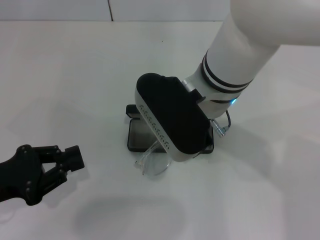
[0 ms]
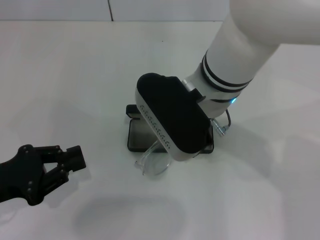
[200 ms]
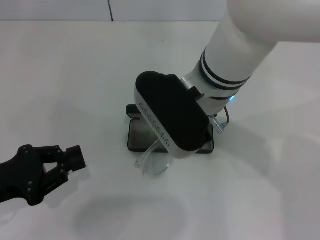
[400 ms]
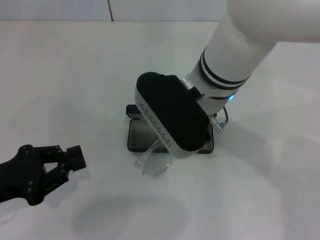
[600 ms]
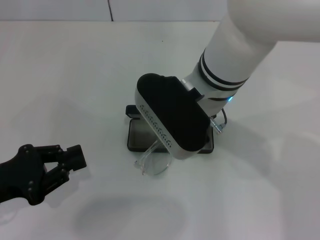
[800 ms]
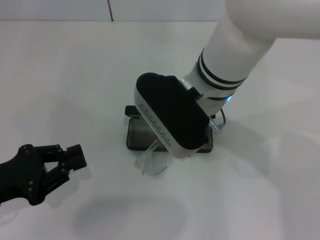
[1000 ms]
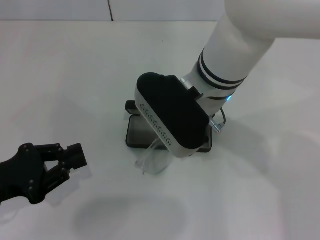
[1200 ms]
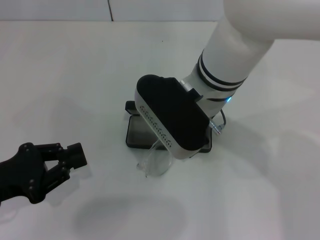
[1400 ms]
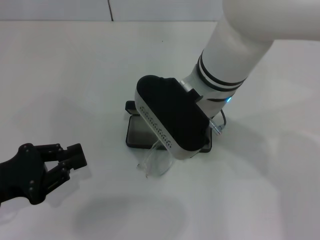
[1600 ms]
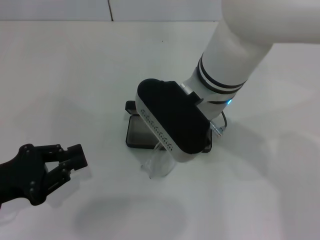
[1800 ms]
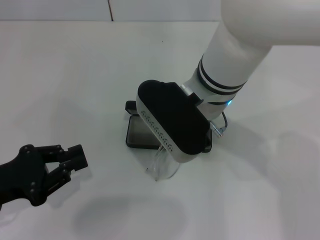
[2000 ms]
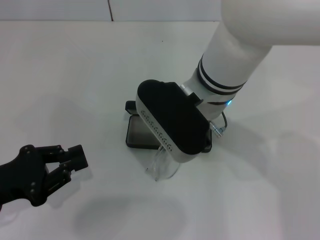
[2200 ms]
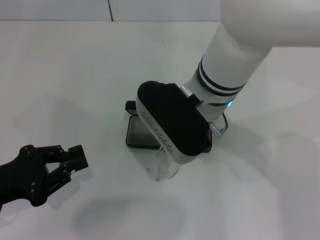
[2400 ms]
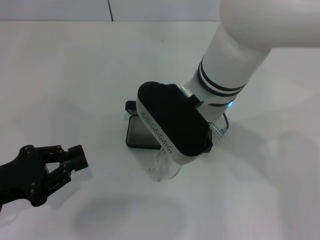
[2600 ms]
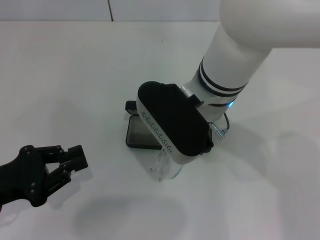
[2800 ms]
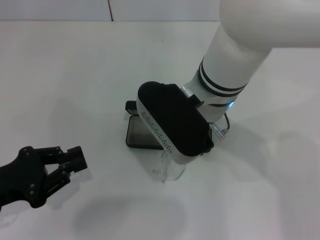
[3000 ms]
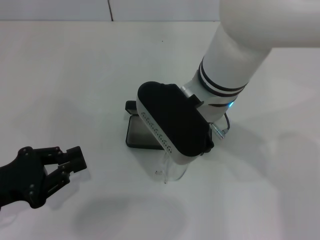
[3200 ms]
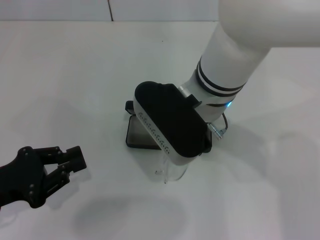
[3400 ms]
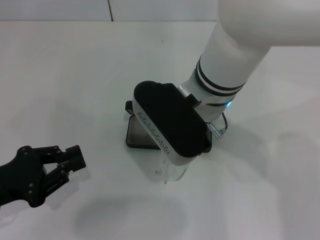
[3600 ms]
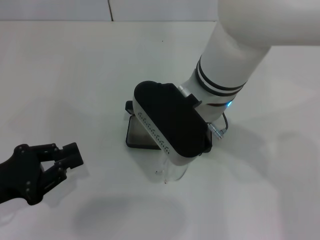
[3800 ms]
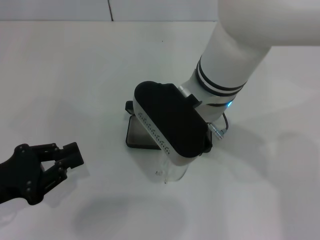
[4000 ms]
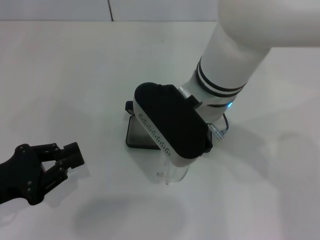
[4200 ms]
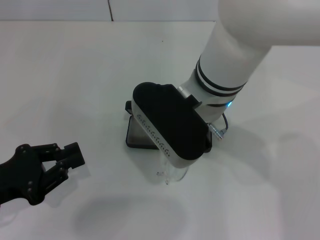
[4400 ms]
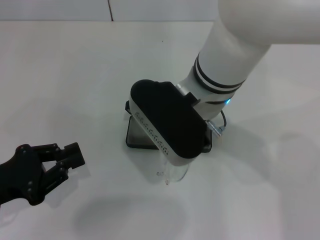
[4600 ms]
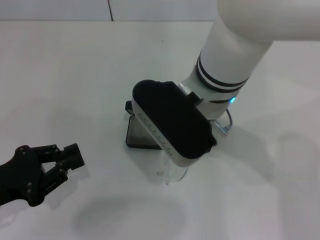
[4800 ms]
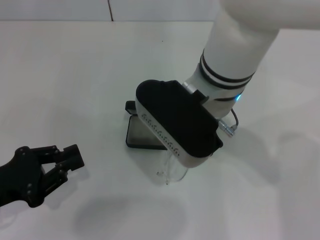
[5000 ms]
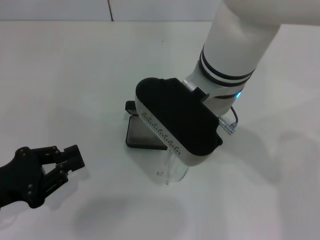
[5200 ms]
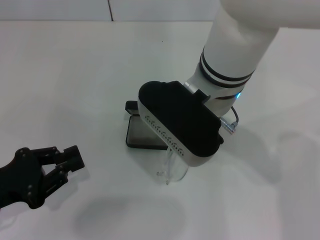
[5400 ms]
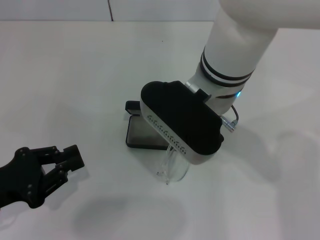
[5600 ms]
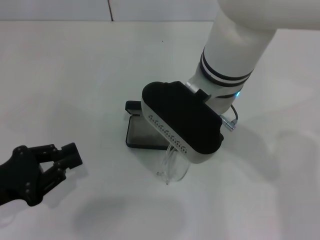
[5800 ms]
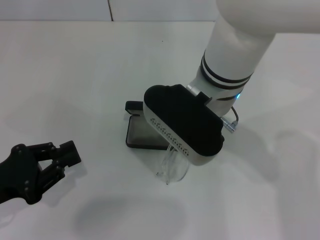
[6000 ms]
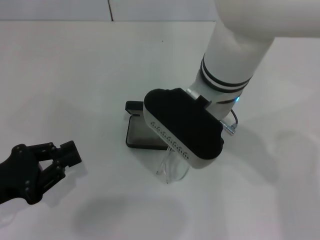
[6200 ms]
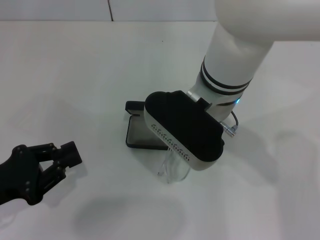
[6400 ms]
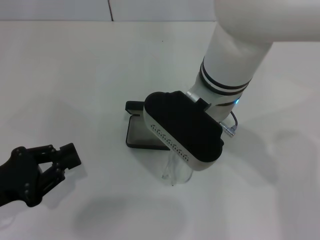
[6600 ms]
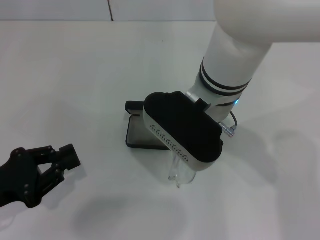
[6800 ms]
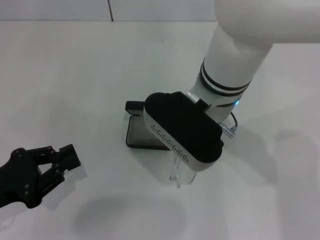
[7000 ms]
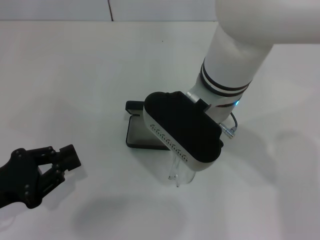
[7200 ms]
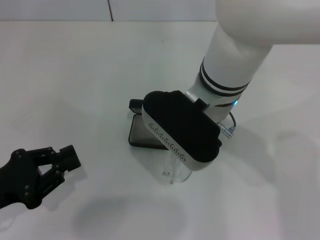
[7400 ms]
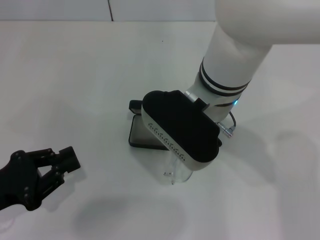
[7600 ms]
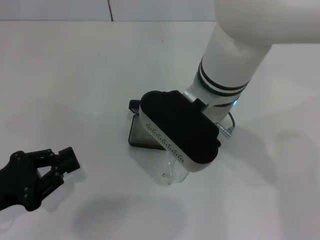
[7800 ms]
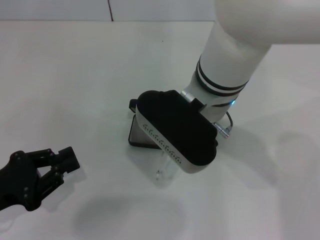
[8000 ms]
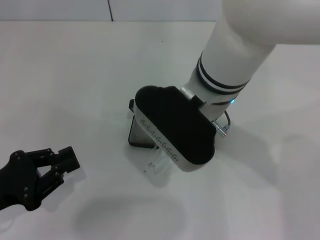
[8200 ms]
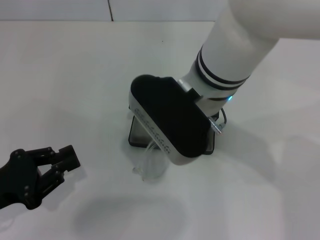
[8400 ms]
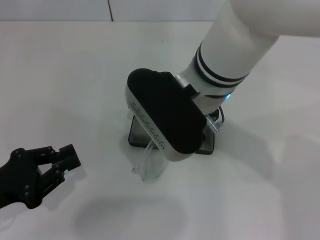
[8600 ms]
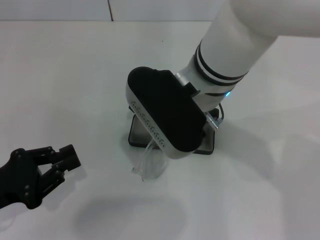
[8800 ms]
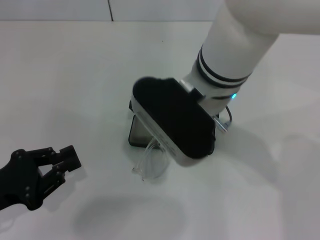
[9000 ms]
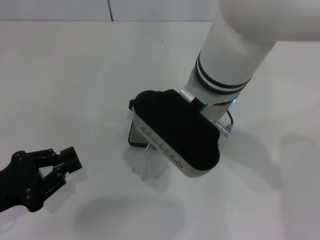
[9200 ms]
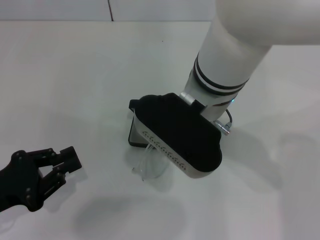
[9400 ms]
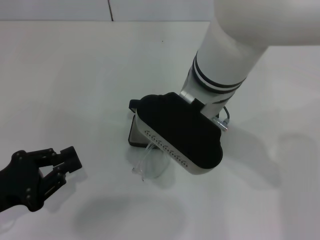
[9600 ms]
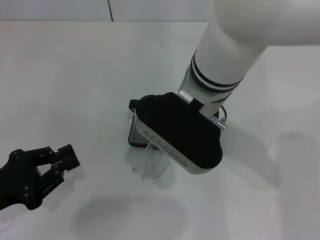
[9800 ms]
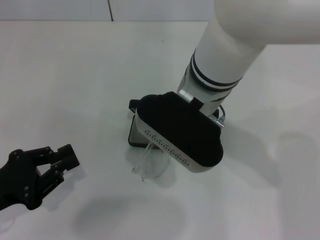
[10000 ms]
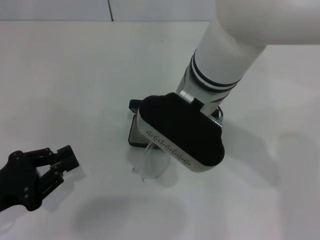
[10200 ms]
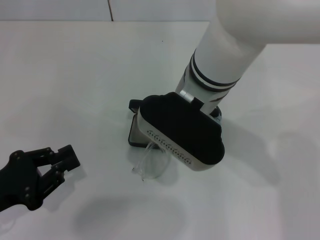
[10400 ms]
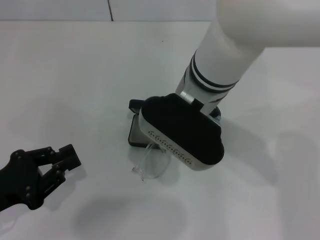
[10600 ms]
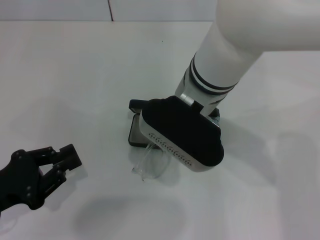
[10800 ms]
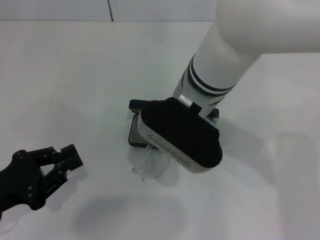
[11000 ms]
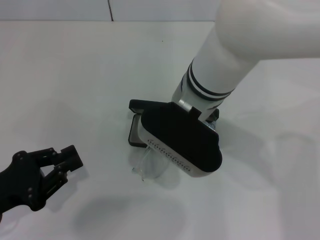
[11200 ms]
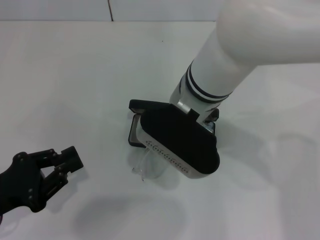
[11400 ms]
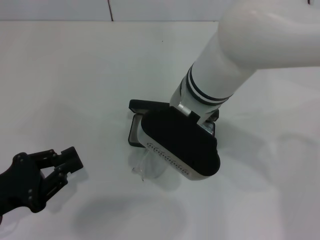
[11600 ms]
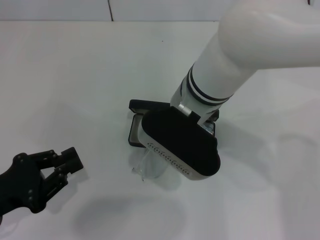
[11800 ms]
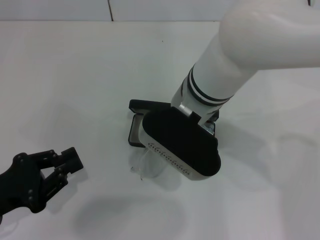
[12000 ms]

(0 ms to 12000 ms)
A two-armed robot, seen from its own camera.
0 ms - 1600 ms: There are only small adjustments of the grippers.
1600 ms - 3000 ms: Both grippers stay put.
3000 ms - 4400 ms: The right gripper closes its fingers.
4400 ms - 6000 ms: The right gripper opens up.
6000 ms - 7600 ms: The right gripper closes.
7600 ms - 9000 ms: There are only small adjustments of the grippers.
9000 ms - 10400 ms: The right gripper opens.
10400 ms - 12000 ms: The grippers make only small movements.

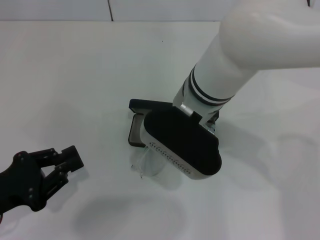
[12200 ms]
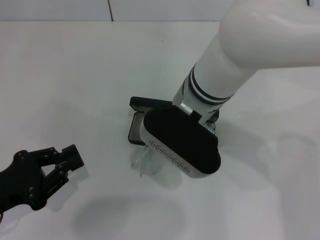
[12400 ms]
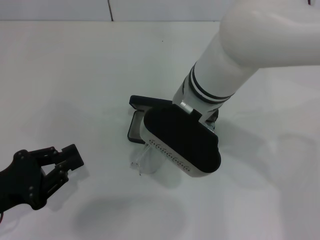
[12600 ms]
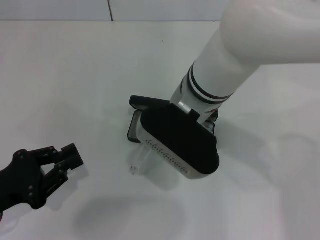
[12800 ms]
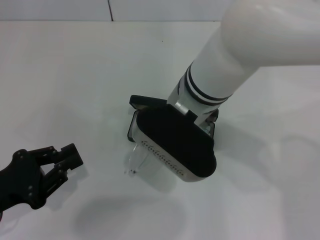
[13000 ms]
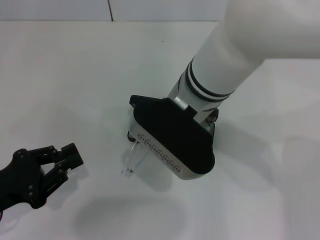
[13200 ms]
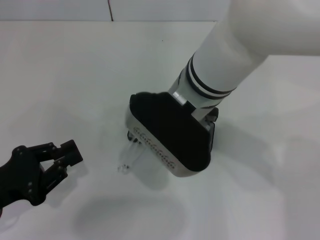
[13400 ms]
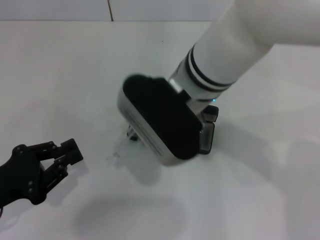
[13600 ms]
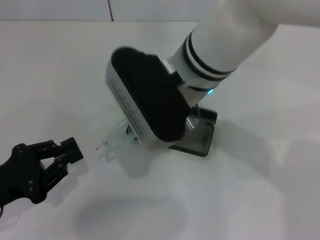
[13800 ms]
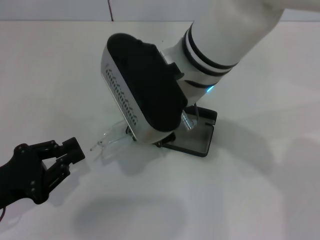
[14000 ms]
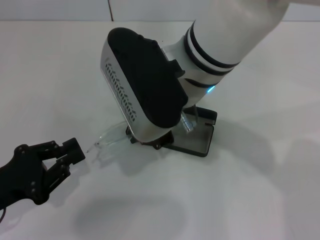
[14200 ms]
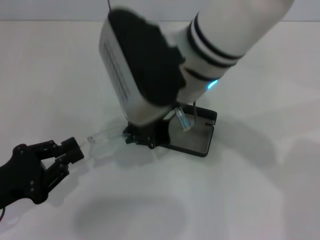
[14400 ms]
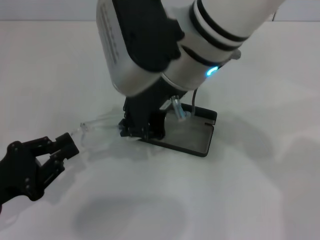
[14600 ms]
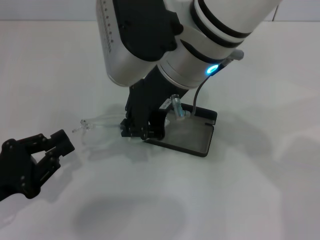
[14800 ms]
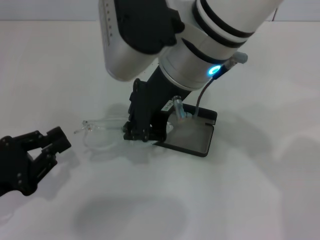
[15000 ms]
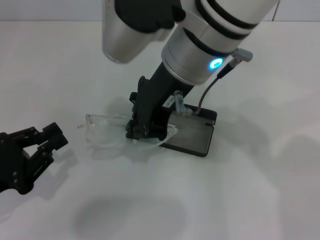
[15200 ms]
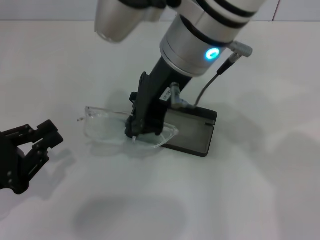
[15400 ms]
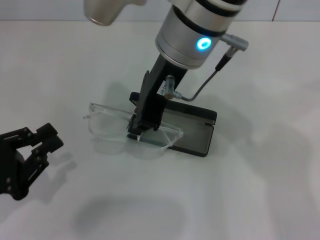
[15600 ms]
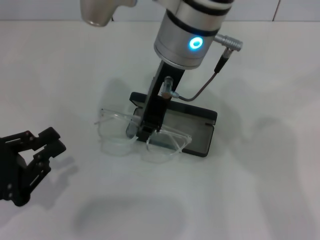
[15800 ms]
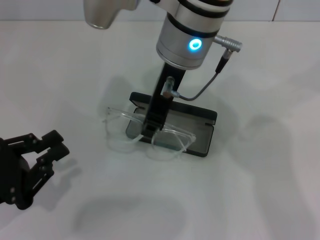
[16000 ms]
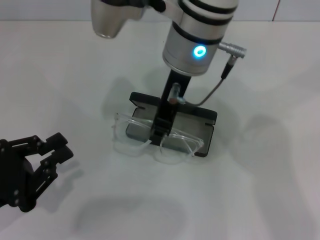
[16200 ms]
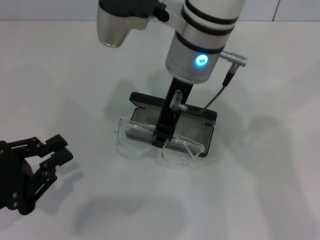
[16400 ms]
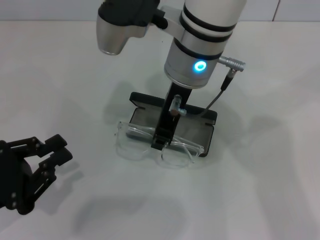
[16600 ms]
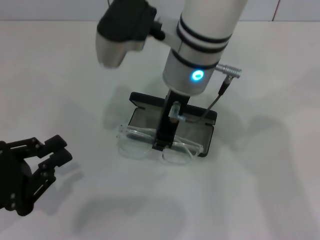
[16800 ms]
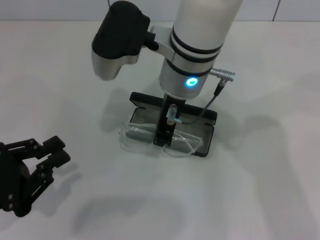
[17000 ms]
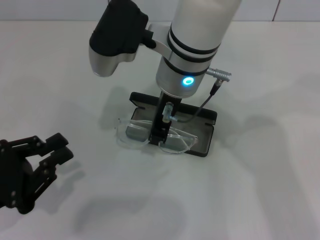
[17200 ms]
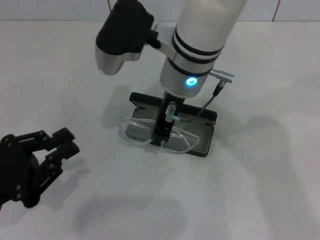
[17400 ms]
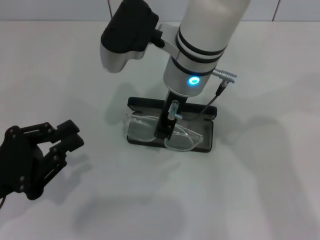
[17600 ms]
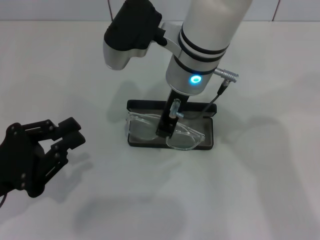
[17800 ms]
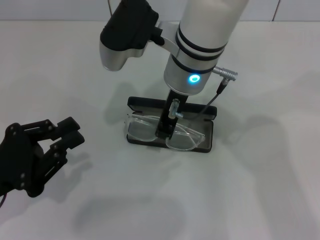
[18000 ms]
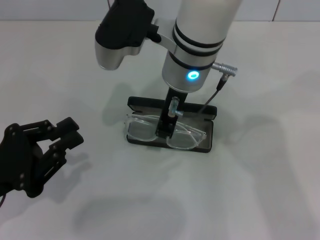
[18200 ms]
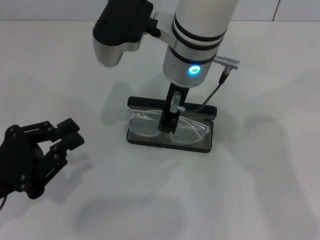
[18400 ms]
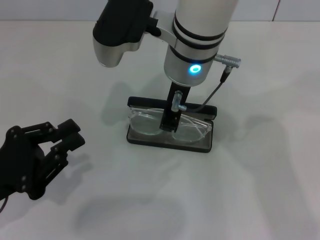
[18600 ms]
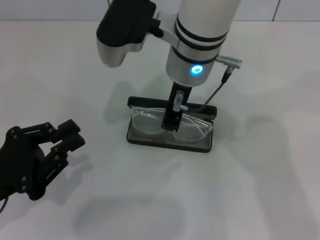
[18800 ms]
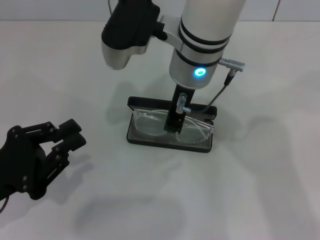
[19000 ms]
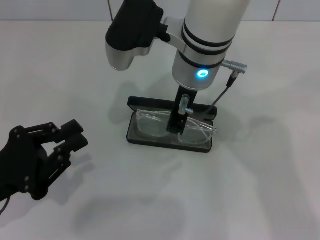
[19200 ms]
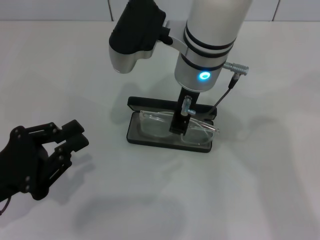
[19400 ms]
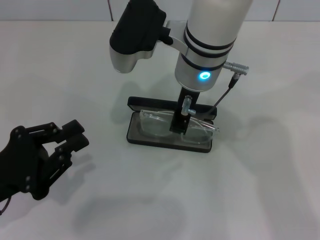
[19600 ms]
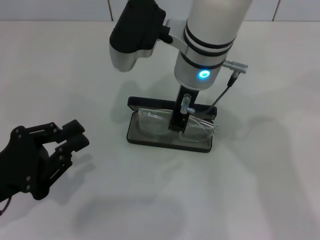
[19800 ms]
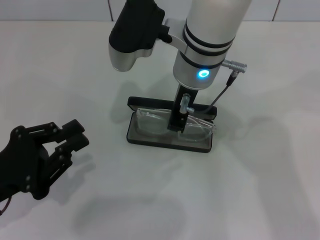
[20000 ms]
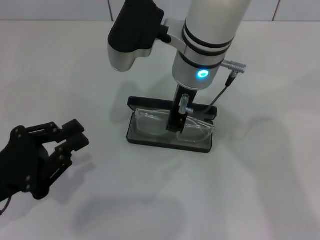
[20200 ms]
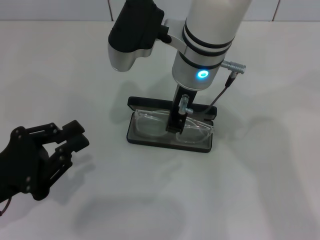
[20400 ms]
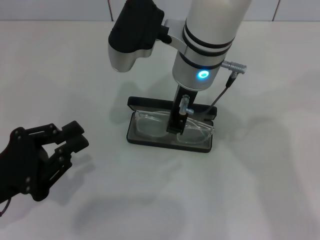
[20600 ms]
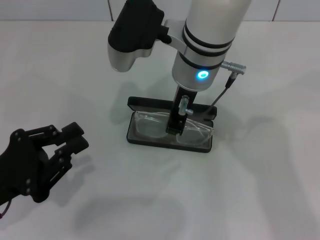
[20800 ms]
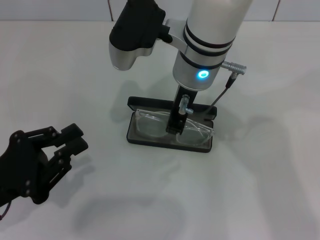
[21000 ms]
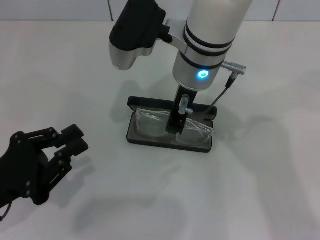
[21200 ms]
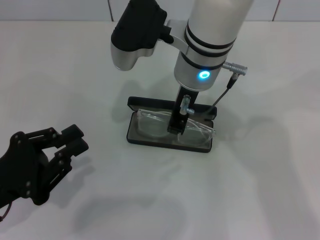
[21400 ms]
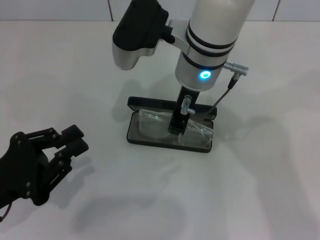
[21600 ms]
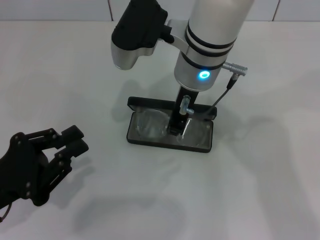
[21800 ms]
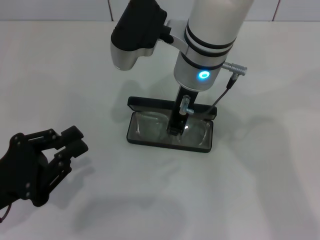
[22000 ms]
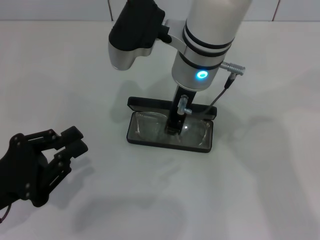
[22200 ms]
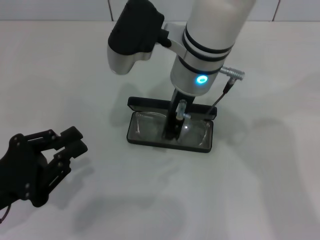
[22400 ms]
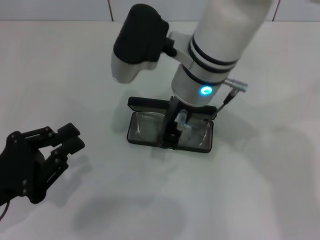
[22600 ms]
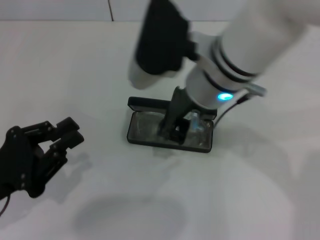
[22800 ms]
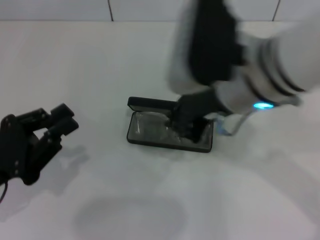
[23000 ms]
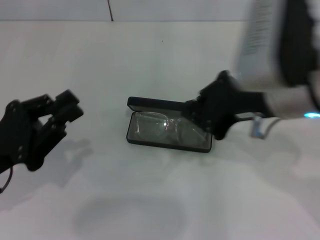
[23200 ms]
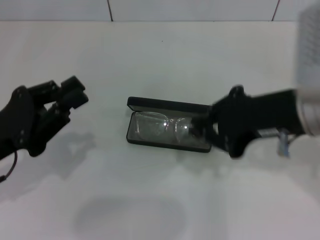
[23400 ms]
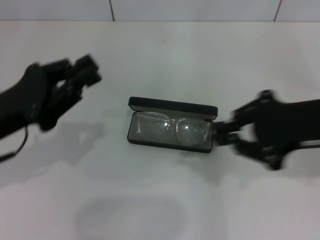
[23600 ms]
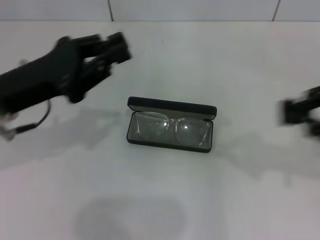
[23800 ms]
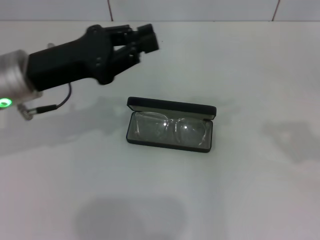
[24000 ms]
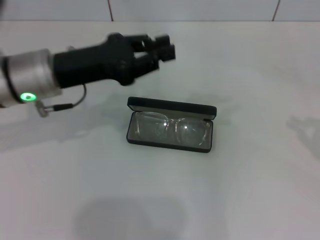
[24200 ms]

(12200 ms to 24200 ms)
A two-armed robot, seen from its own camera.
Step, 12200 ms - 22400 ms: Put the glasses into the case with your right hand.
12200 ms - 13800 ms: The right gripper heads upward, covering about 5 cm, and closes its fingers.
15200 ms - 16600 ms: The right gripper shifts by about 5 cm.
16600 ms - 19800 ms: The grippers stay close to where they were, moving slightly.
19800 ms - 21200 ms: Neither gripper changes place.
21200 ms - 22600 ms: The grippers stay close to where they were, moving slightly.
22600 ms - 24200 ms: The right gripper is displaced to the right by approximately 40 cm, while the left gripper goes about 20 cm forward, to the right and upward.
